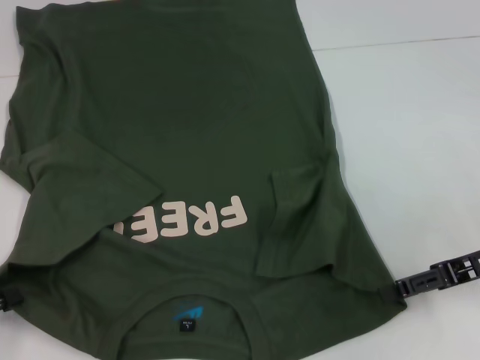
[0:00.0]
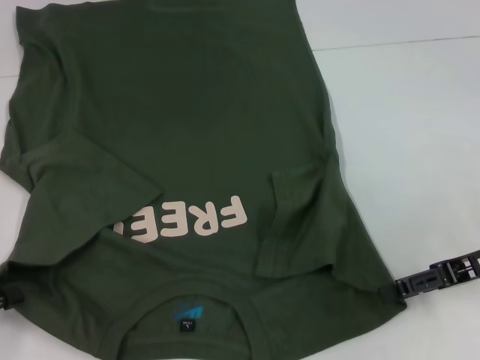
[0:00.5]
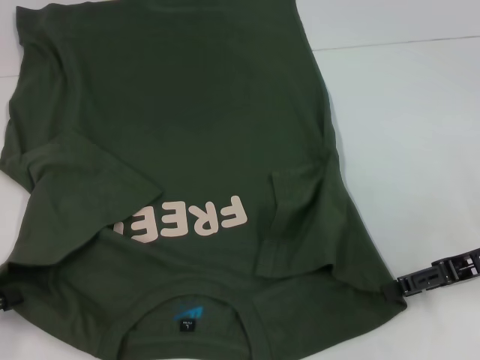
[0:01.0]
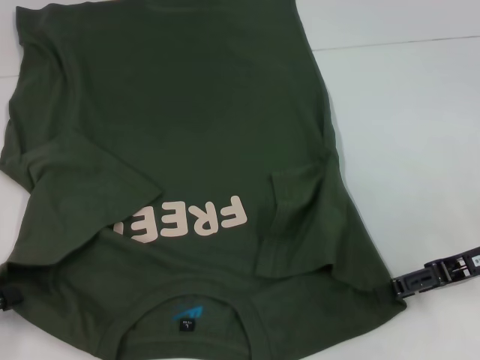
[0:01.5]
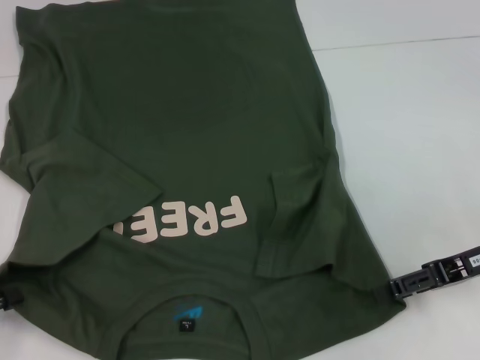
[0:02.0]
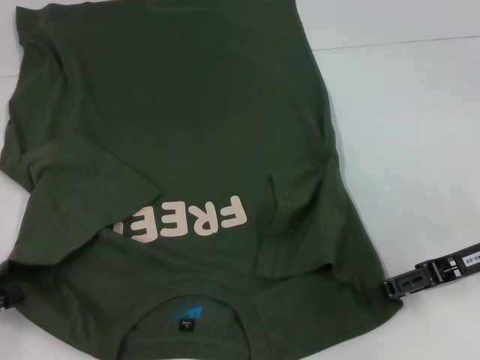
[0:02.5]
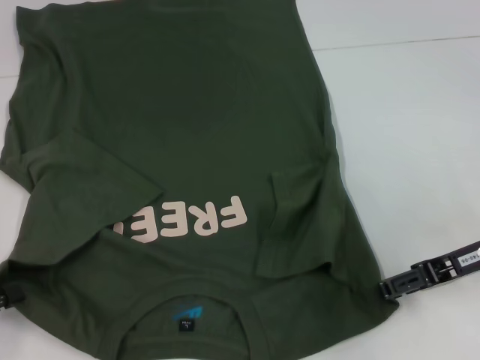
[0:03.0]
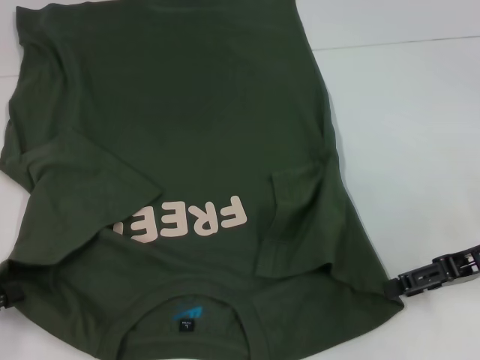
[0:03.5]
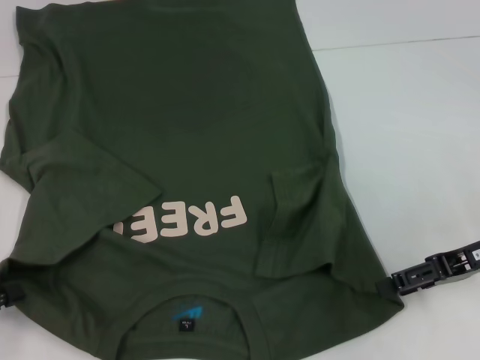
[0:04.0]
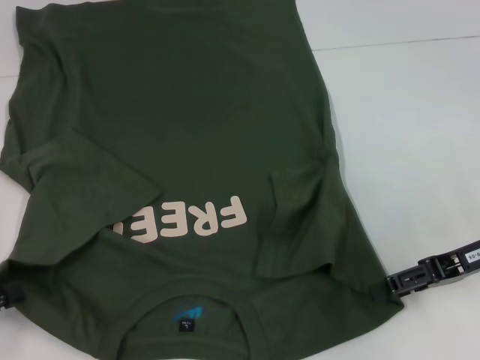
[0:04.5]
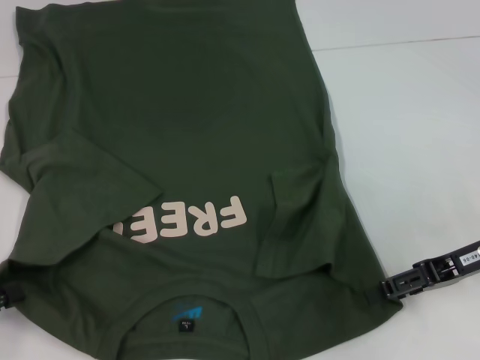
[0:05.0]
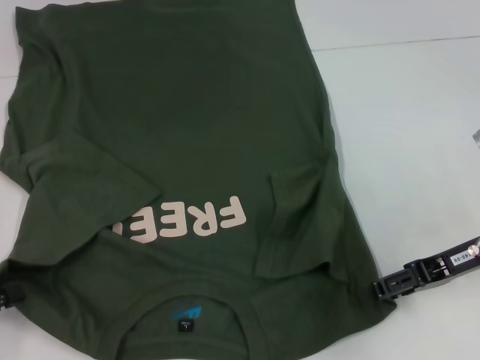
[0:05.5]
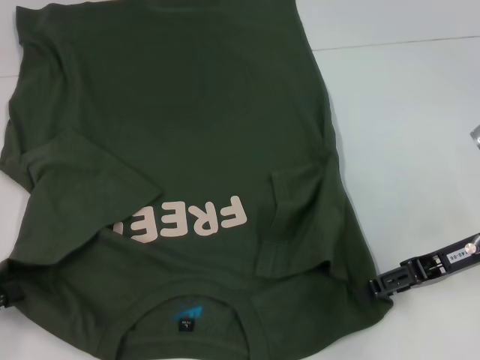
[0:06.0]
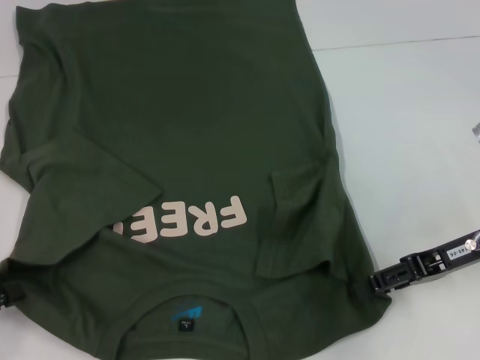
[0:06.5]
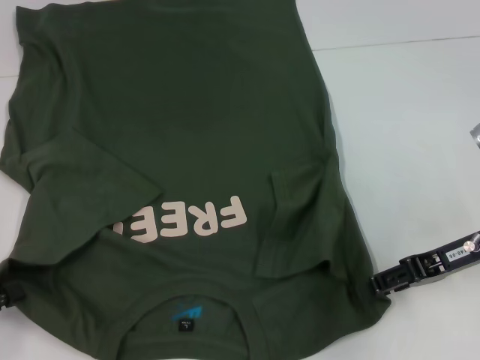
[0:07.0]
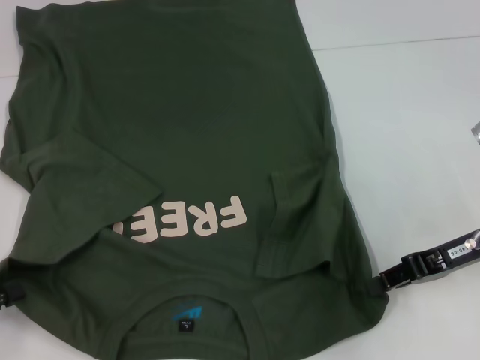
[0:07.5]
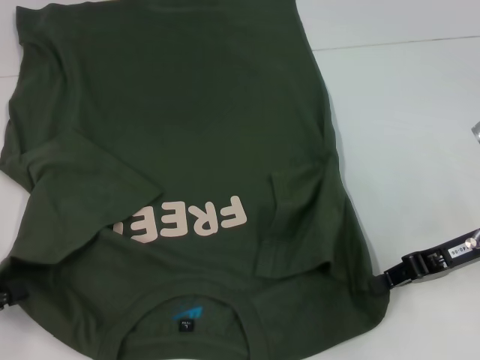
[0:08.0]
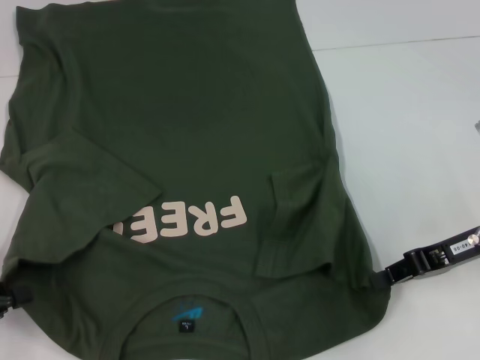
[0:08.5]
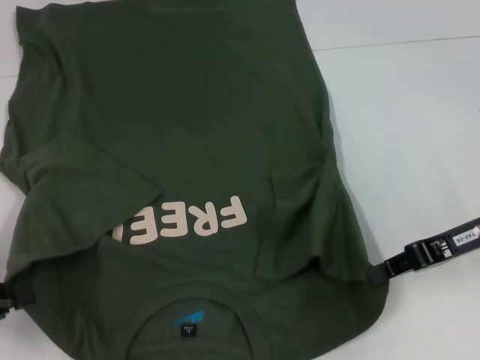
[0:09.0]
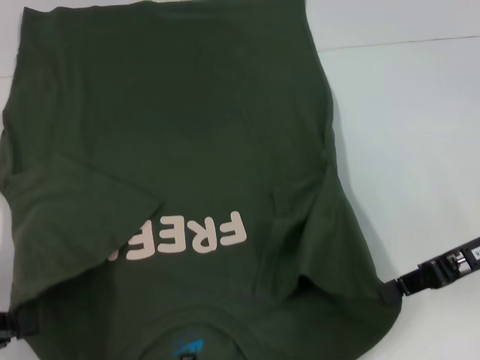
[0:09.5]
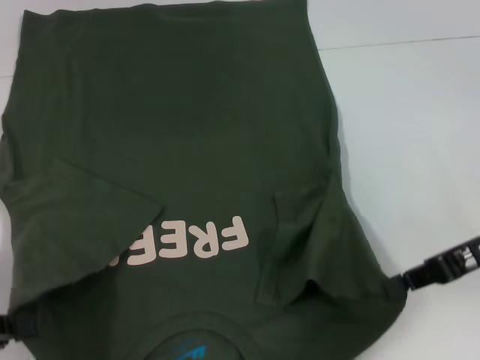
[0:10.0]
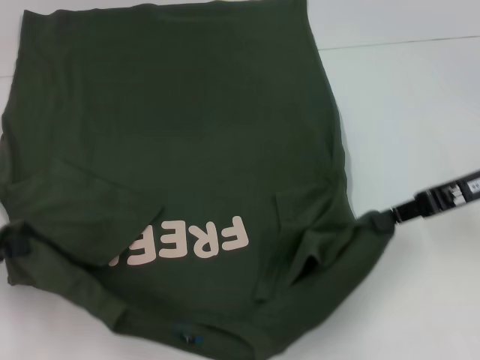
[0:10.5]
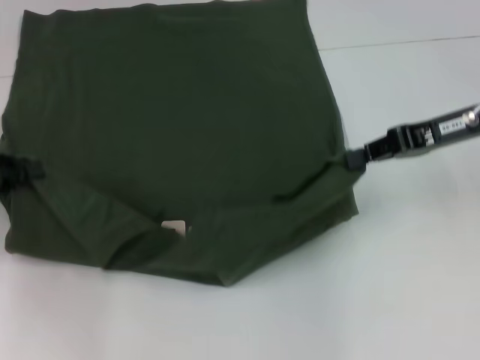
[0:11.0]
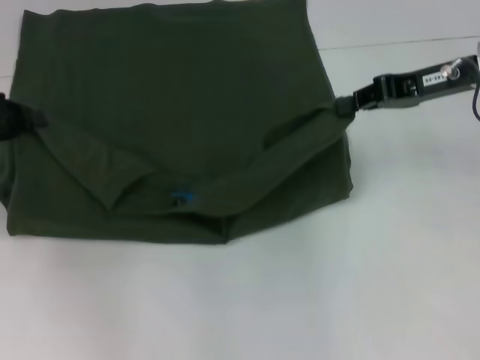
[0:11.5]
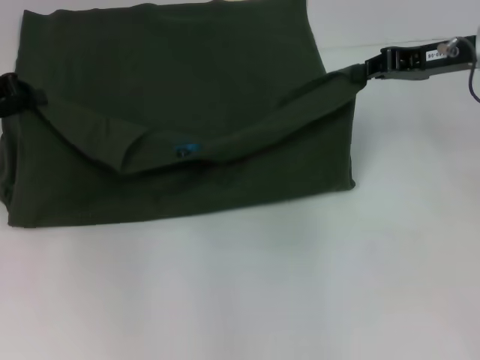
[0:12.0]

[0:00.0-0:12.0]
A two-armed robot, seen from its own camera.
Step, 0:00.0 to 0:08.0: Grab the bottom right corner with your right hand.
0:00.0 to 0:02.0: Neither gripper changes place.
0:02.0 to 0:06.0: The grippers move only a little.
0:06.0 to 0:08.0: The right gripper closes its fingers.
0:08.0 to 0:10.0: The grippers make only small movements.
0:10.0 to 0:12.0: The left gripper shifts approximately 20 cm forward, while the right gripper goes approximately 15 cm forward and upward.

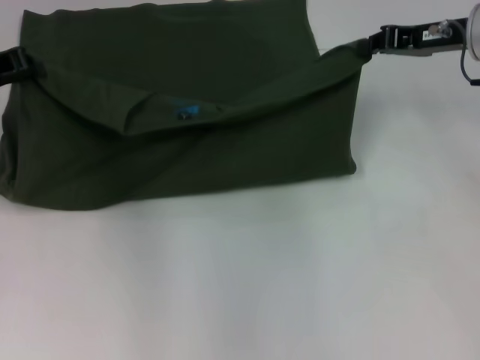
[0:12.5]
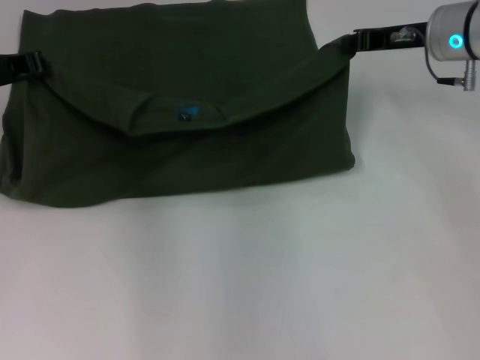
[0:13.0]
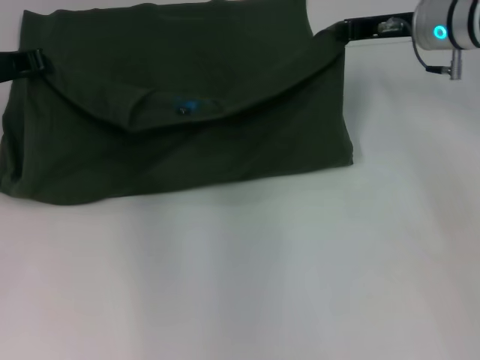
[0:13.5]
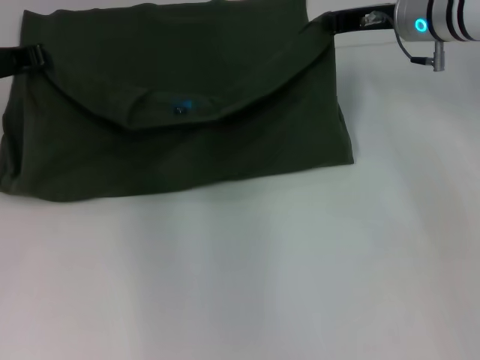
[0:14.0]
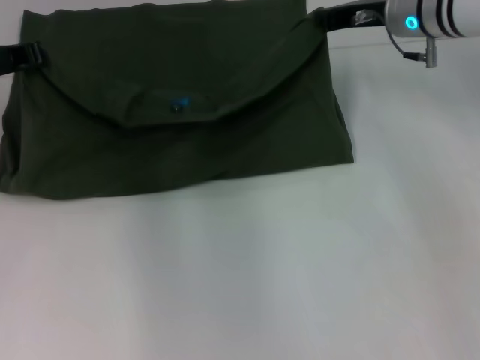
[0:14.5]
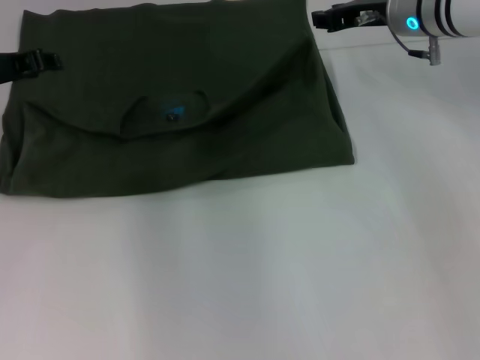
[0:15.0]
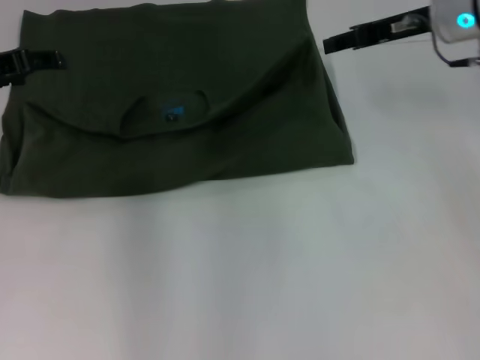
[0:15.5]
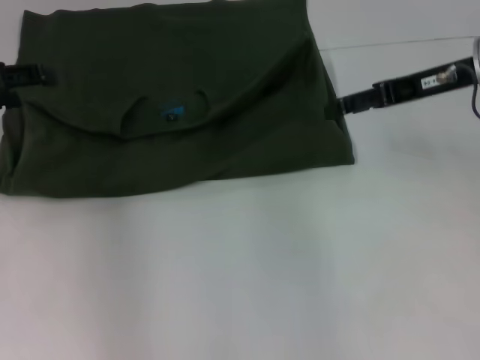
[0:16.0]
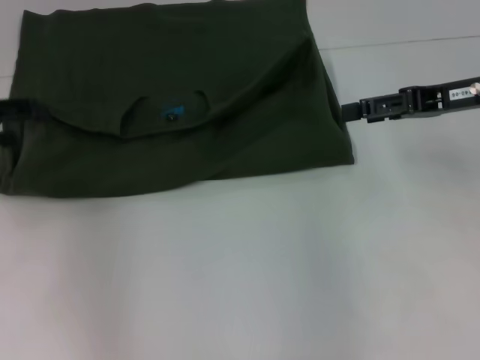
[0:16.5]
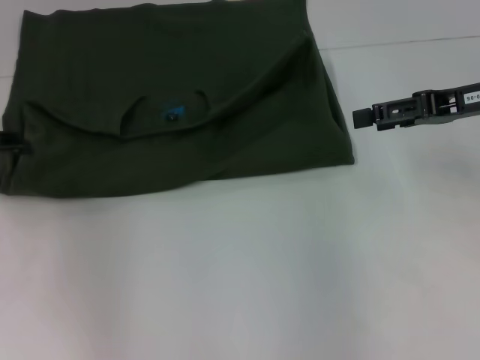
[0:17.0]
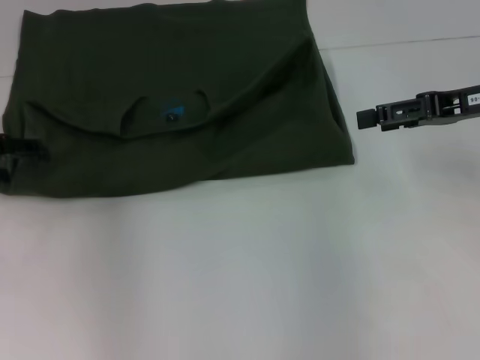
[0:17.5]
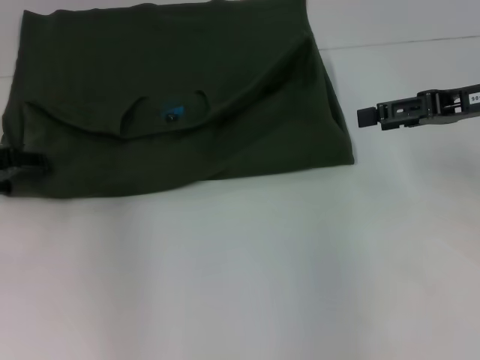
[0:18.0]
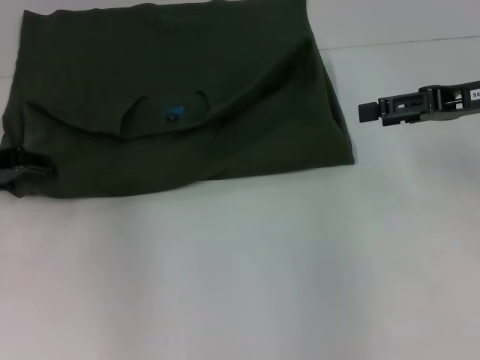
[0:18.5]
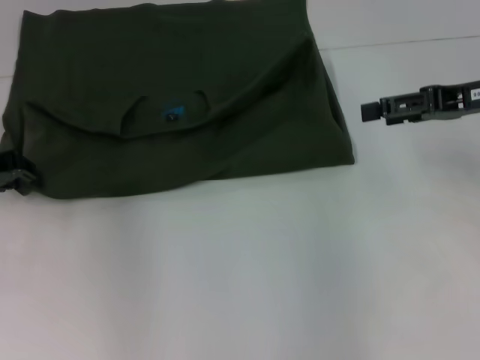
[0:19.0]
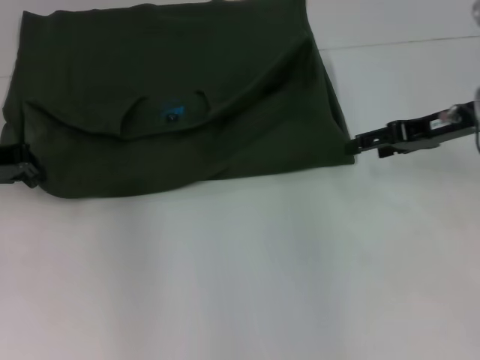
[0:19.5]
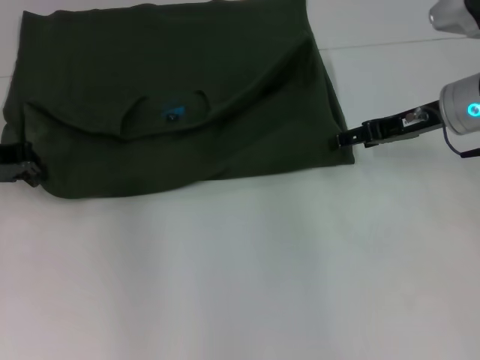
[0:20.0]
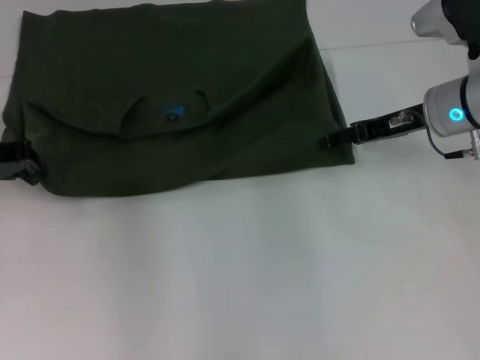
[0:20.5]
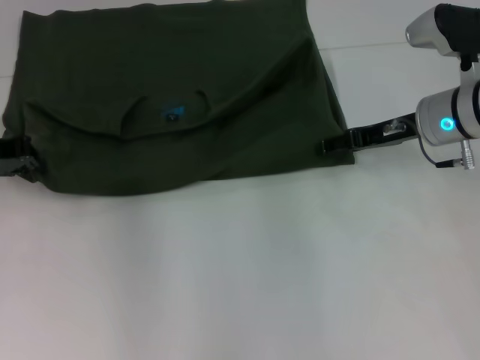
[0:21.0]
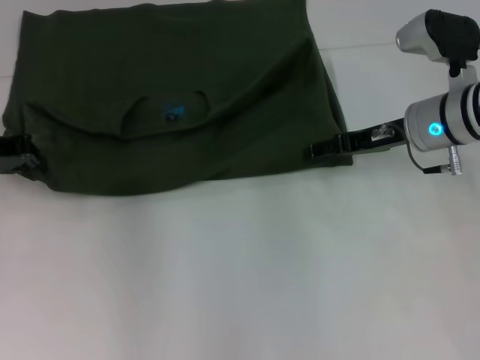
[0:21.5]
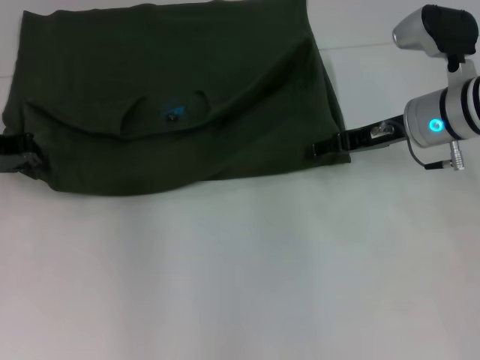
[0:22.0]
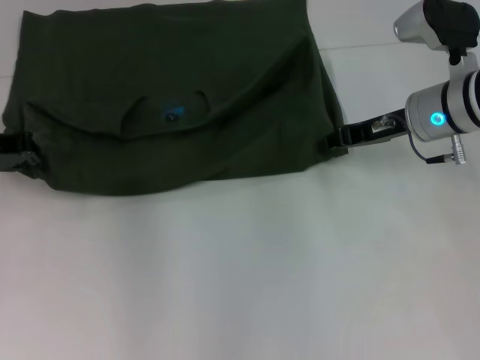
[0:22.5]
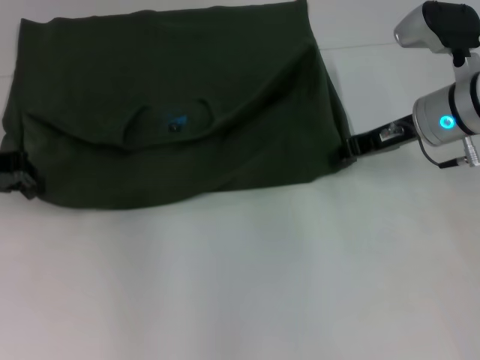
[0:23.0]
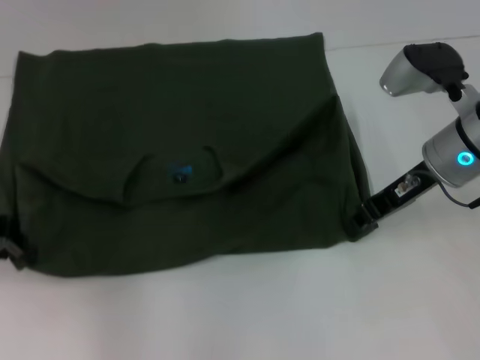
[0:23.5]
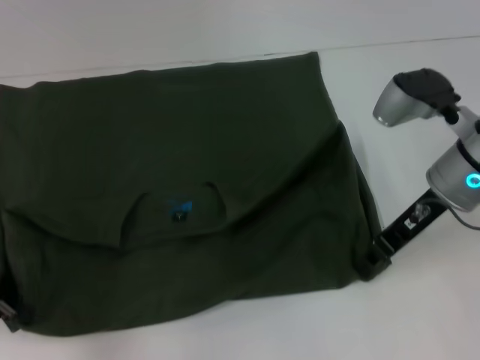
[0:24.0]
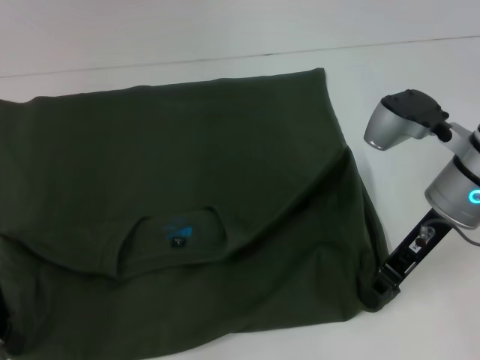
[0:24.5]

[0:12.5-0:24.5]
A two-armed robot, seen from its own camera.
Step, 0:12.5 to 0:14.5: Fold the clothes with your left hand.
Step, 0:12.5 to 0:14.5: Fold the clothes with your right hand.
Step, 0:15.0 to 0:24.0: Pull the clothes with your left hand.
Step, 0:15.0 to 0:24.0: Pull the clothes with your right hand.
0:12.5 to 0:14.5: The right gripper is displaced to the left by approximately 5 cm.
0:14.5 to 0:16.5: The right gripper heads backward and to the right, covering about 15 cm, and opens its fingers; the left gripper shifts about 10 cm backward and to the left, and opens its fingers.
0:16.5 to 0:18.5: The left gripper moves roughly 5 cm.
0:18.5 to 0:20.5: The right gripper heads downward and to the left, covering roughly 10 cm, while the left gripper closes.
0:20.5 to 0:22.5: The right gripper closes its fingers.
0:22.5 to 0:24.5: The grippers both shift backward by roughly 10 cm. The right gripper closes.

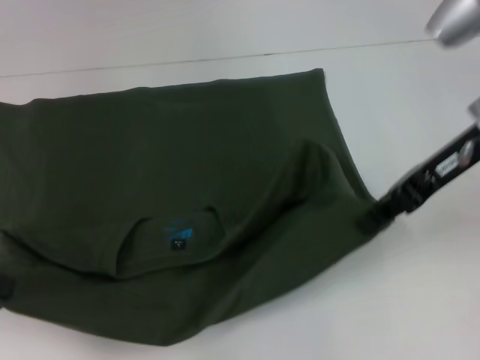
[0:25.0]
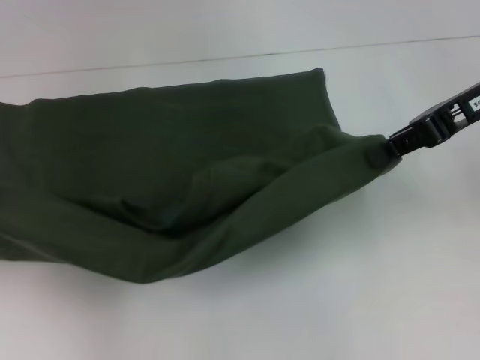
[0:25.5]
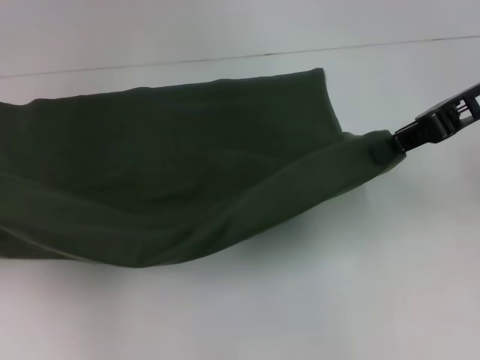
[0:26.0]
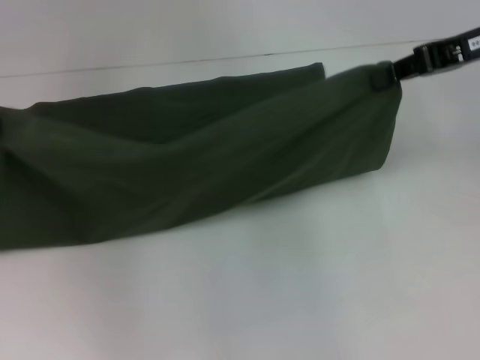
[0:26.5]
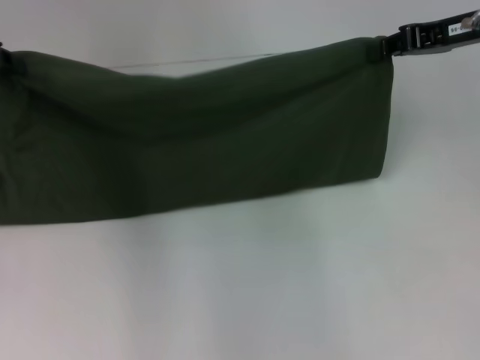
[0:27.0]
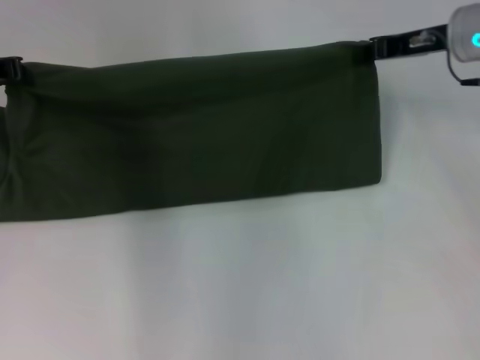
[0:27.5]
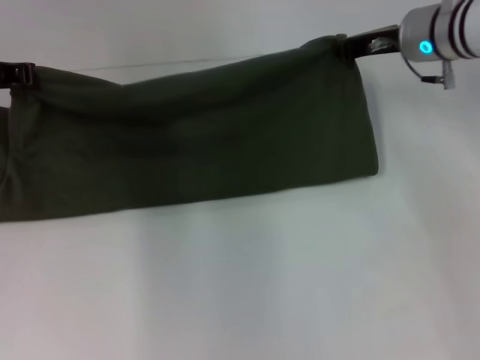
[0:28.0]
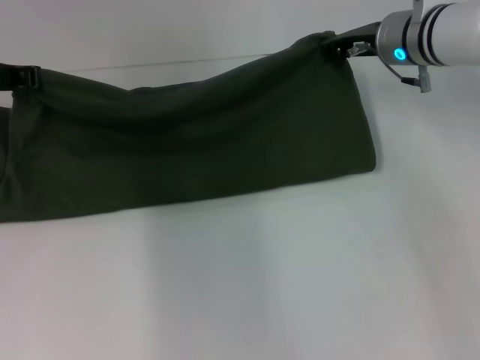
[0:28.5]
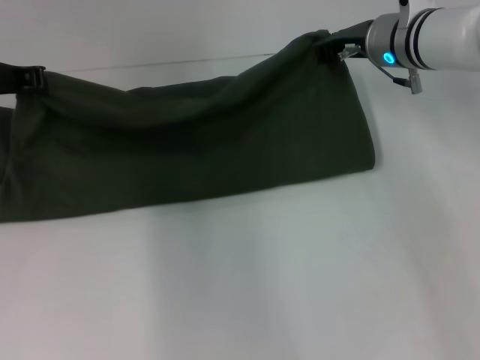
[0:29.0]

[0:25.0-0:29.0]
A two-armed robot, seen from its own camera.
0:25.0 to 0:27.0: The right gripper moves forward, some 5 cm, while the left gripper moves forward, about 10 cm.
0:27.0 to 0:29.0: The left gripper moves to the right, about 5 cm; the right gripper moves to the left, downward and forward, some 15 cm.
